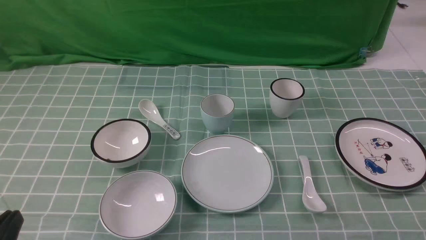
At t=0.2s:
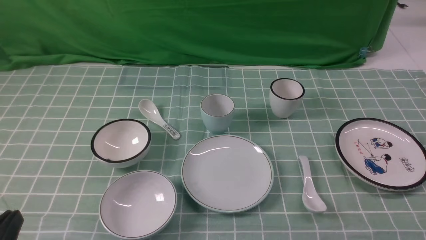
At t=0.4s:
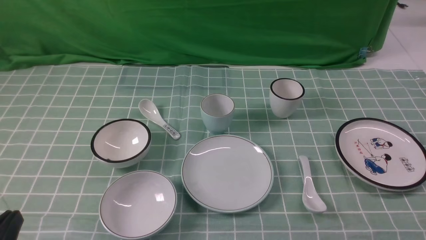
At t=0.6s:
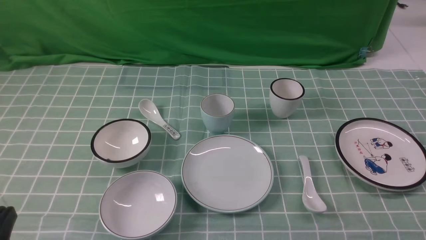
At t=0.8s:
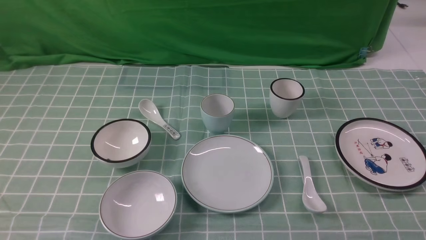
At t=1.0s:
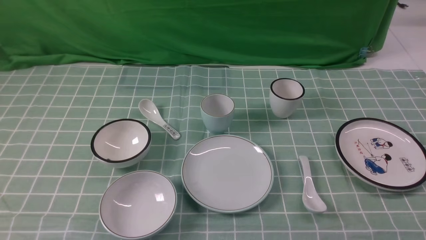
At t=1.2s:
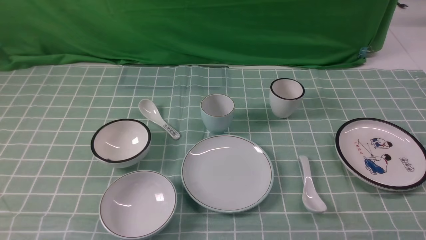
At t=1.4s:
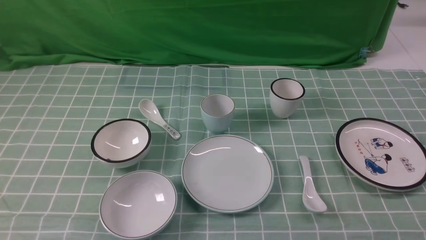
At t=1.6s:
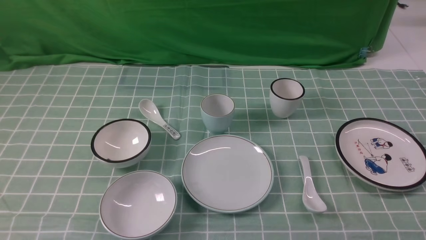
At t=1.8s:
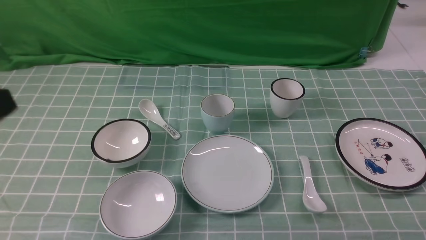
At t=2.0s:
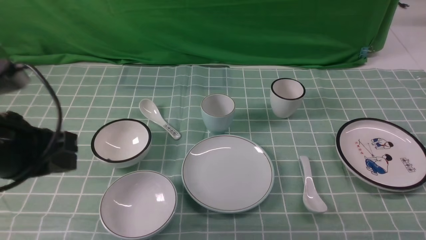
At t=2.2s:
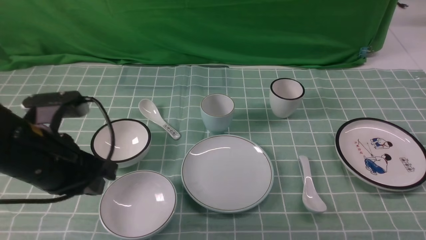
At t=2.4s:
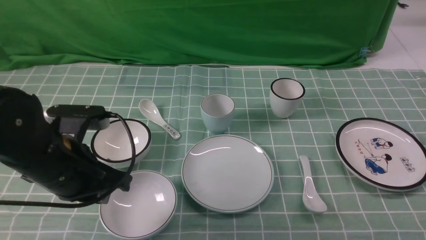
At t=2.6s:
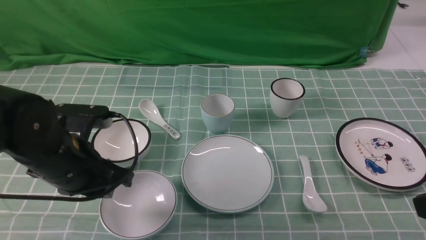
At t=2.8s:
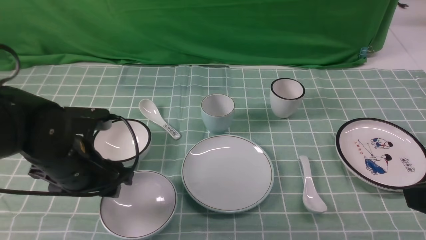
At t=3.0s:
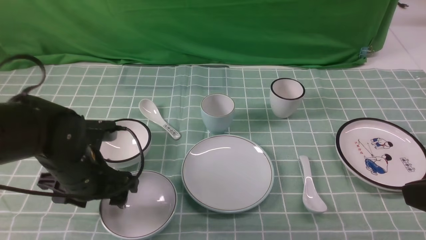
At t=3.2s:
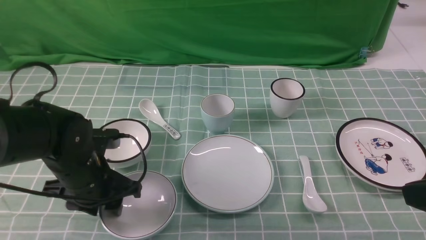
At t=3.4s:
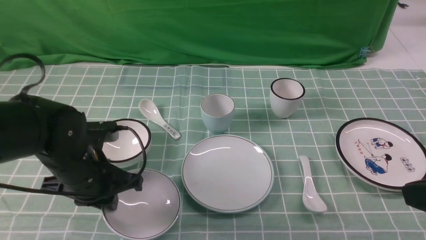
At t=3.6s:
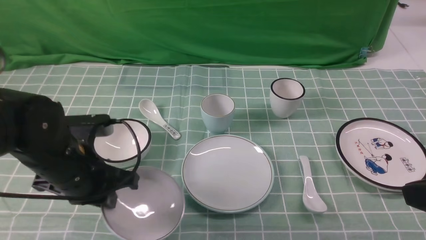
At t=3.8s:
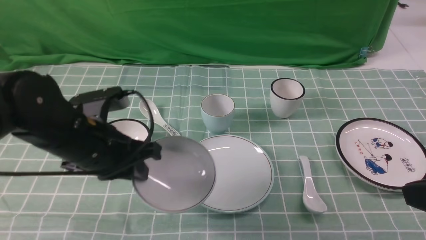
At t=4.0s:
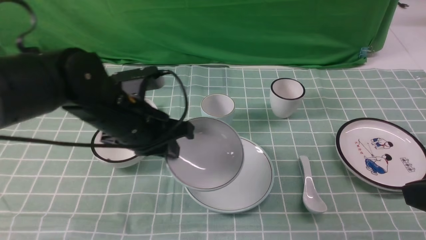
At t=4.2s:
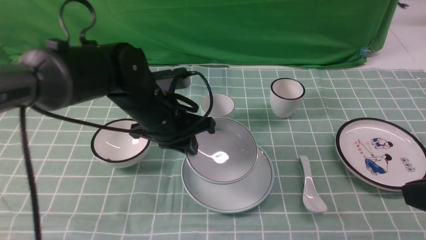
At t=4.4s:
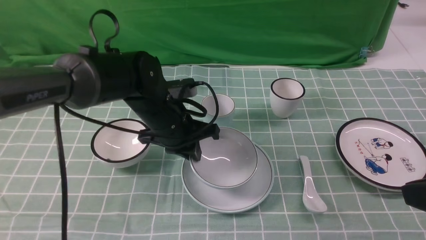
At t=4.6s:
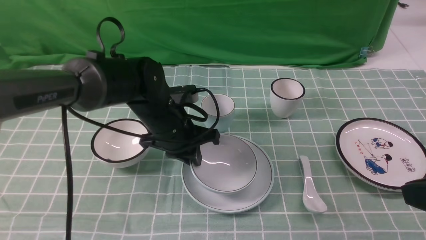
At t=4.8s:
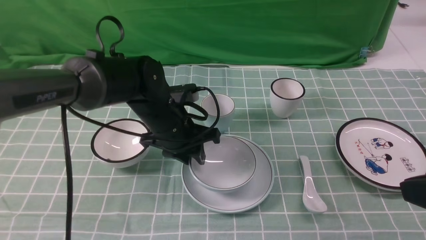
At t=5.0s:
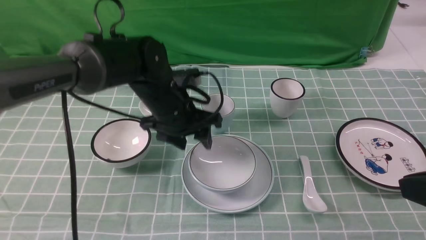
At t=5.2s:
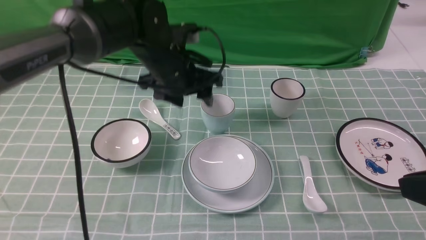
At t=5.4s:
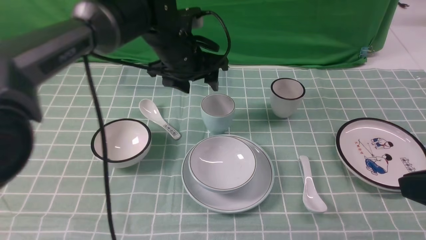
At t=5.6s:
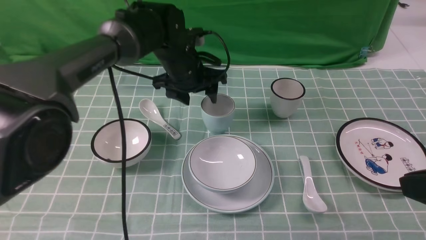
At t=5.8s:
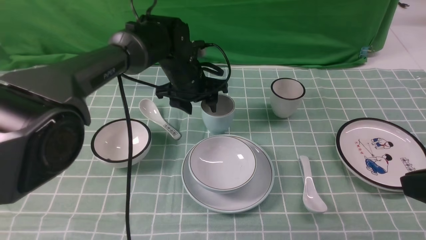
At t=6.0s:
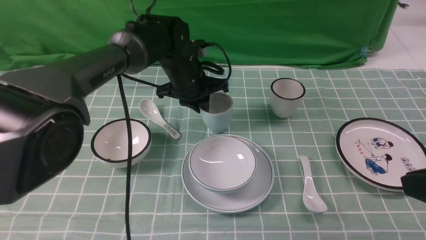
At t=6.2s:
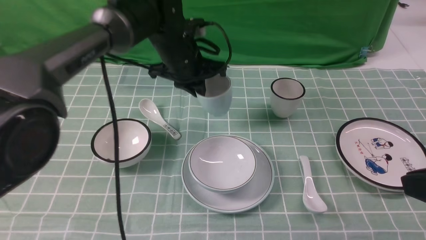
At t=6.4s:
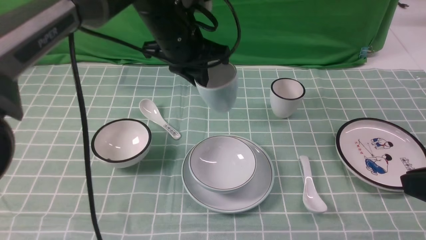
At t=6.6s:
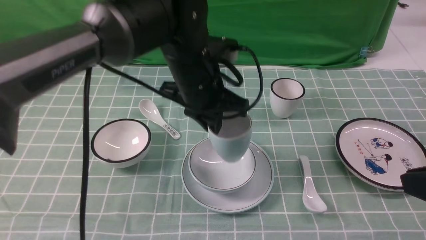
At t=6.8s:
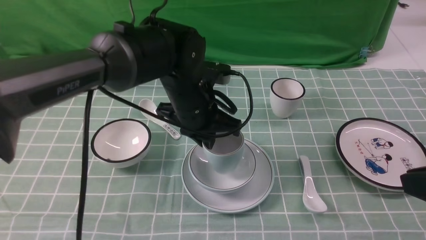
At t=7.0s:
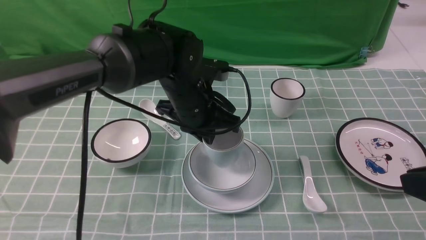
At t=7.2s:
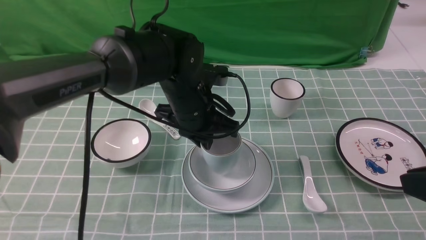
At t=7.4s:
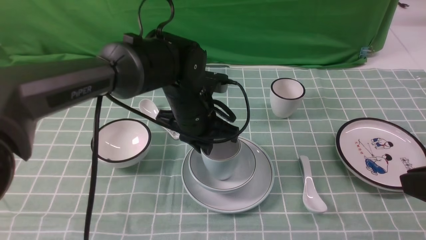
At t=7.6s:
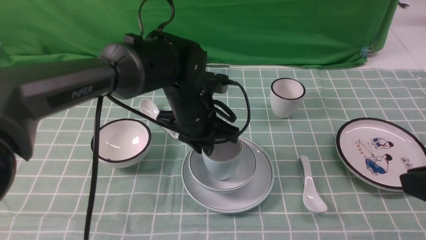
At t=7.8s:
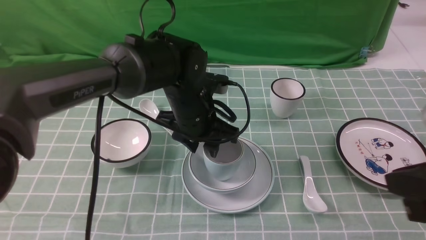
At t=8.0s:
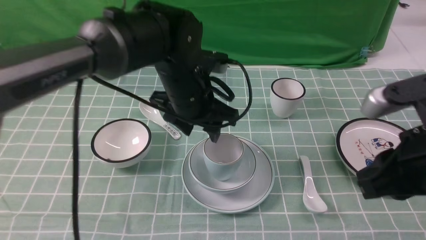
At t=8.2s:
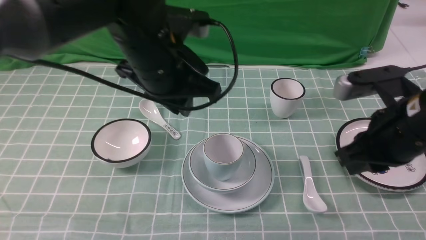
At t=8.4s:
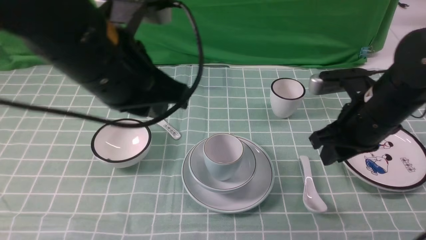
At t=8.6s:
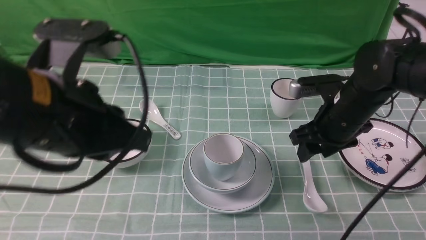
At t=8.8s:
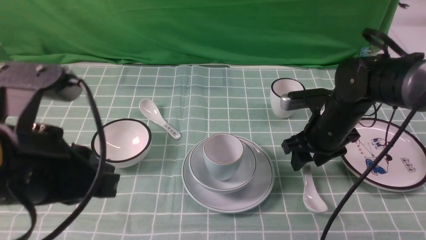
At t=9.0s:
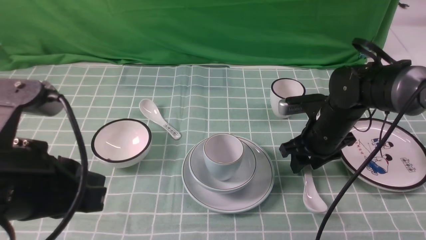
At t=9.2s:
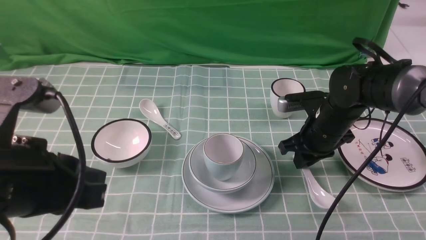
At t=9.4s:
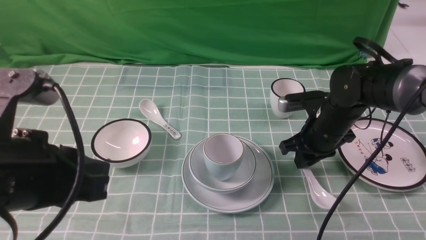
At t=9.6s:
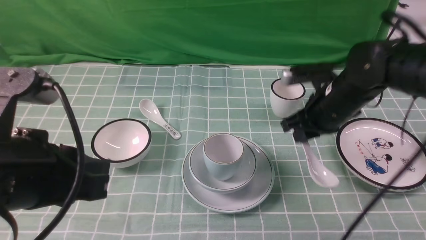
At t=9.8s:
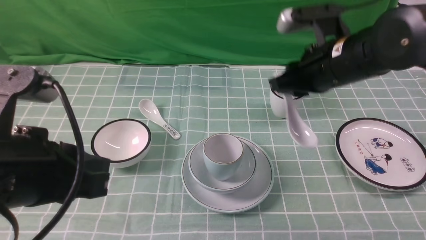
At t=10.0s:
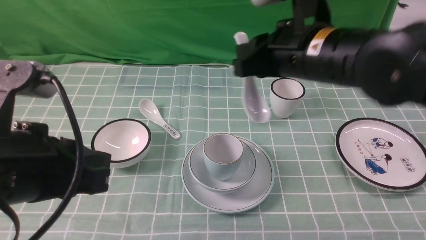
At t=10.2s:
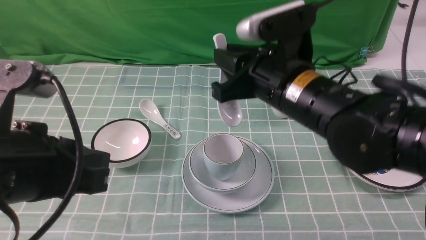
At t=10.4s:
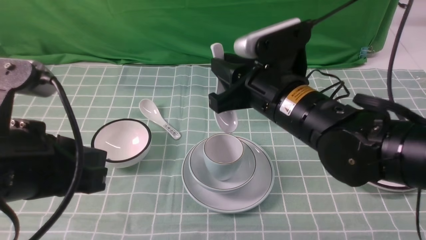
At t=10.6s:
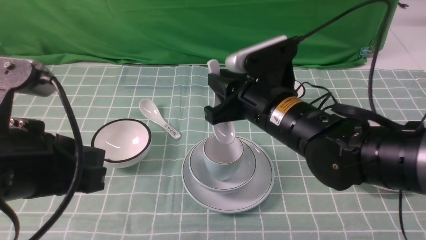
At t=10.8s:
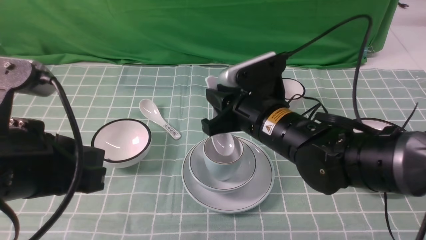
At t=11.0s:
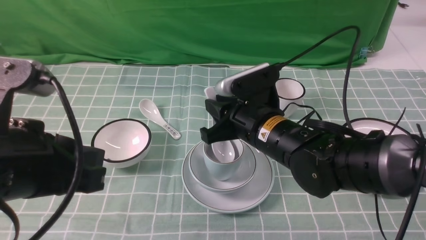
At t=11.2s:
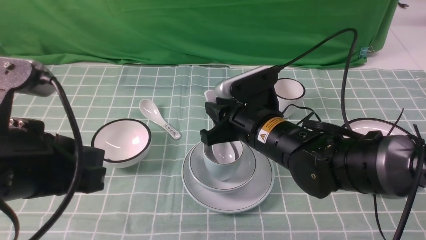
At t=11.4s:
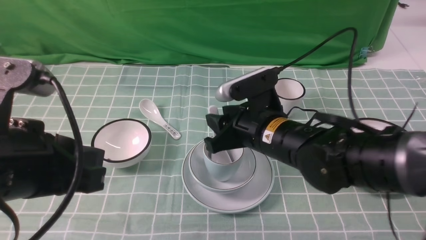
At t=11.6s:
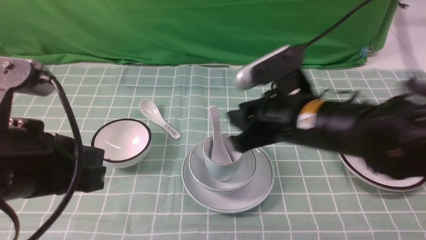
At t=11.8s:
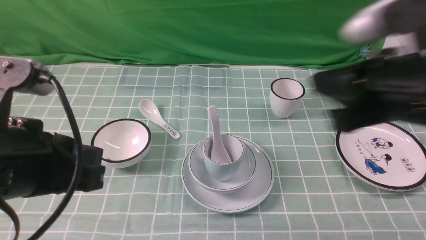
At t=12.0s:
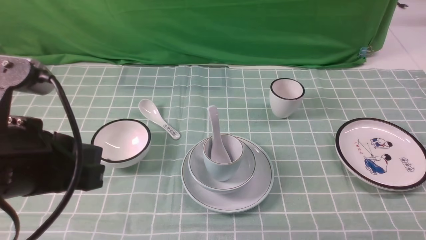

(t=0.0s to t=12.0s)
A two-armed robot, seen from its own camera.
Task of the whole recording: place the bowls on the plates on the blue tablecloth, put the cups on the bowls, and place the spoons in the cups.
Step, t=0.0s - t=3.4s: Grasp the bowl with the left gripper.
Step, t=3.6s - t=4.8s: Place the bowl on the plate with the left gripper.
Step, t=5.0s - t=6.0s: Grasp the cup with the left gripper.
Step, t=6.2s - t=7.8s: Place the cup on the bowl with the left gripper.
Step, t=8.0s - t=9.0s: Grasp the spoon with the right gripper.
Step, t=9.2s - t=11.2s: Place the spoon on the cup with the right gripper.
t=1.6s - t=3.0s: The right gripper shifts some 15 cm upward, to the left and forward, and closes up; the left gripper moves forward and downward, some 25 cm, and opens its fingers.
t=3.0s - t=4.4s: The left gripper travels to the right and forward by about 15 cm, and closes.
t=4.4s - t=6.0s: The left gripper travels forward by some 10 cm, and opens.
t=6.0s - t=7.6s: The left gripper is displaced backward by some 10 cm.
t=7.6s - t=9.0s: The left gripper travels backward, to the left and upward by roughly 30 cm, and opens and closes again. The right gripper is displaced forward and downward by roughly 30 cm, and opens up.
t=9.0s - t=10.4s: The right gripper moves upward, to the left and backward, roughly 20 cm, and closes up.
t=10.4s - t=12.0s: The right gripper heads to the right, backward and upward, covering some 25 cm, and closes up.

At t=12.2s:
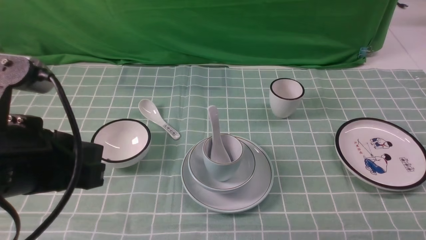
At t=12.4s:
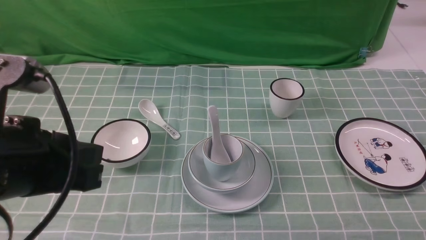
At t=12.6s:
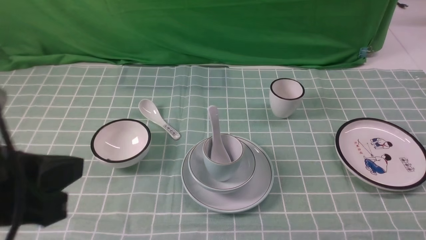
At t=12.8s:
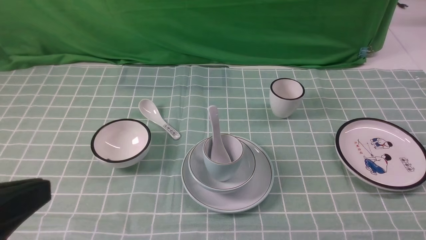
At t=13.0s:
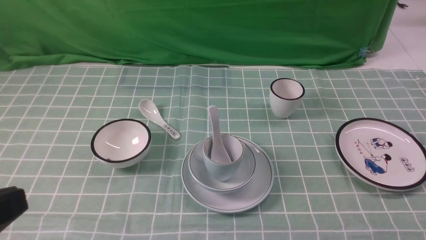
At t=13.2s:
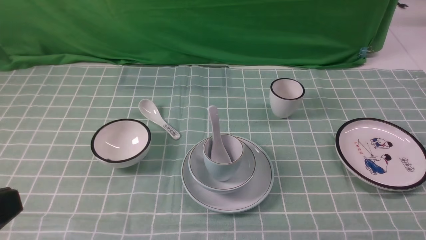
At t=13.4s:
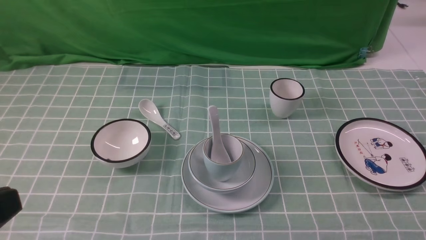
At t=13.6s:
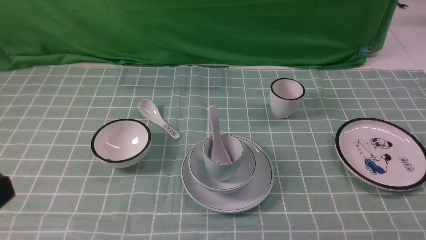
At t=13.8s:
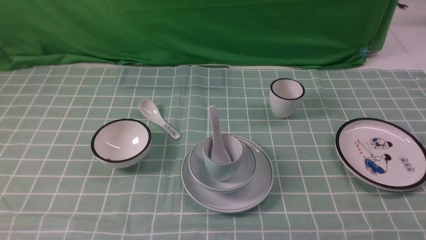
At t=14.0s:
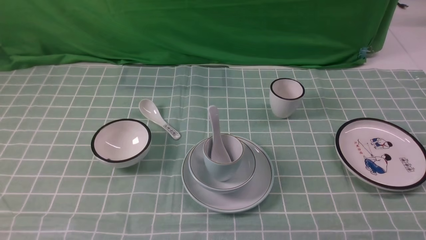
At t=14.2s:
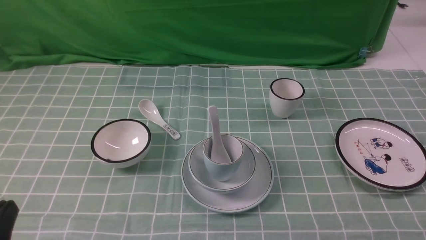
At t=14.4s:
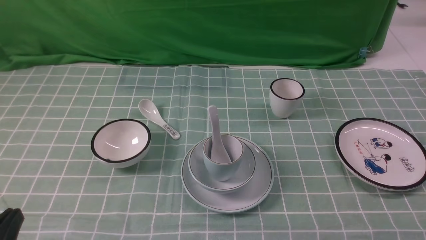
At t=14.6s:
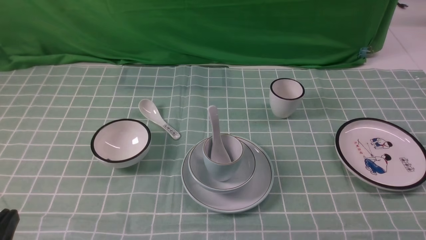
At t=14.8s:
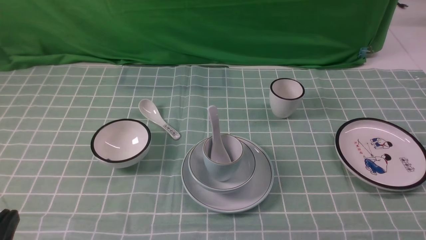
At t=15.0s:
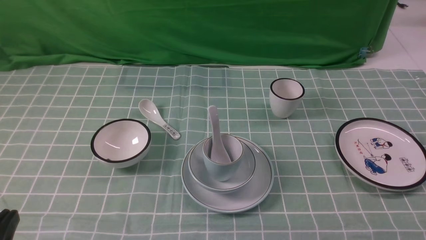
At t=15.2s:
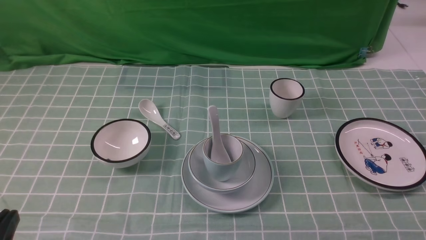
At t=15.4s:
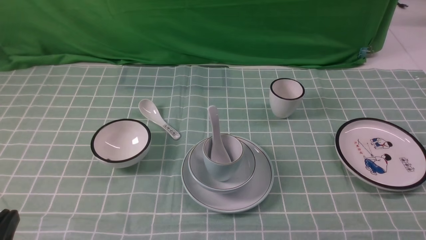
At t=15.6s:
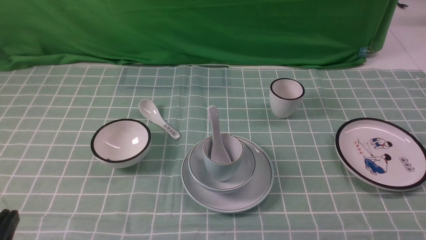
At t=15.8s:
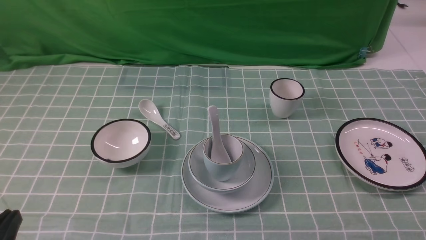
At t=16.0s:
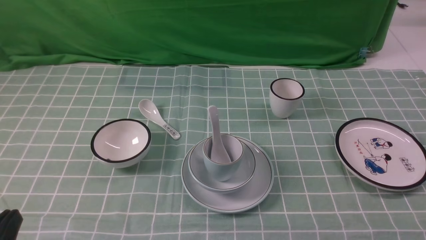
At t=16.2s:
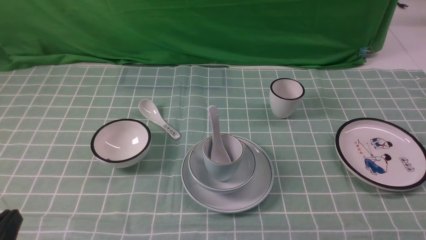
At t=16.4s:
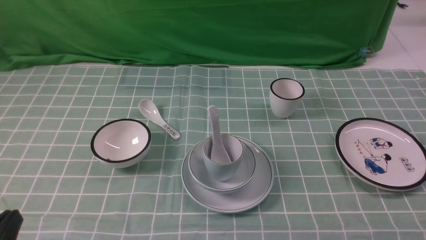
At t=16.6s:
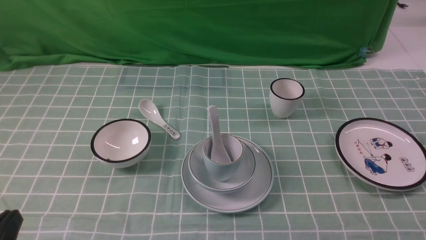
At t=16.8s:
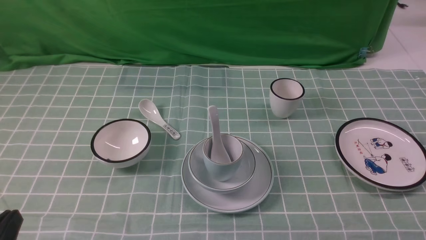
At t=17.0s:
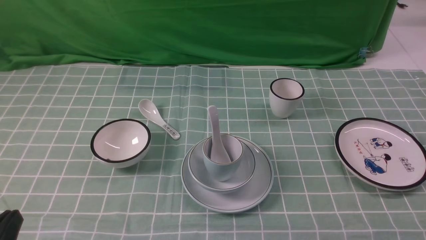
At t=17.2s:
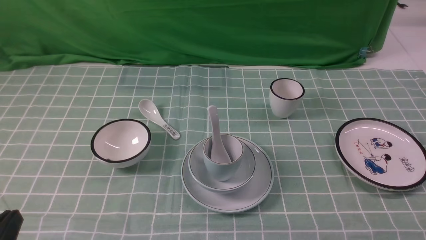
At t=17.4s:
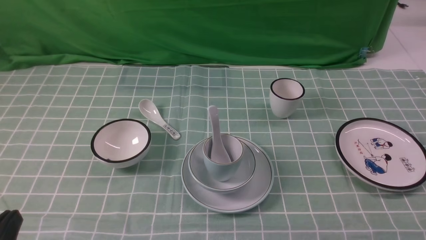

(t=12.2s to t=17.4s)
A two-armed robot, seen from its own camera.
Task of the whole recording: place the bowls on the plates on the blue tablecloth, put the cups on the bowls, and place the spoons in the cups.
t=12.2s - t=14.0s: The left gripper is displaced backward, to the left and downward by roughly 15 cm.
